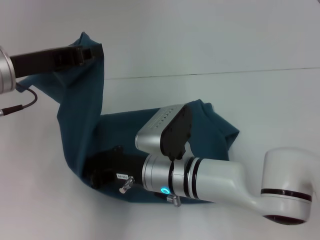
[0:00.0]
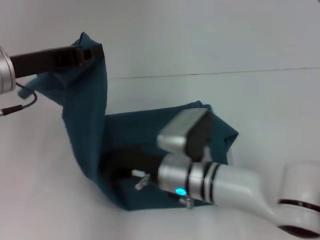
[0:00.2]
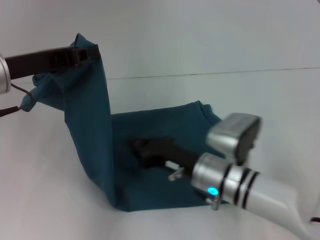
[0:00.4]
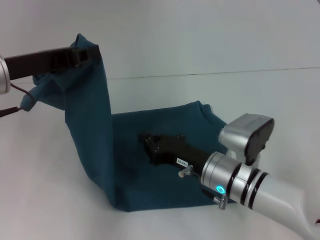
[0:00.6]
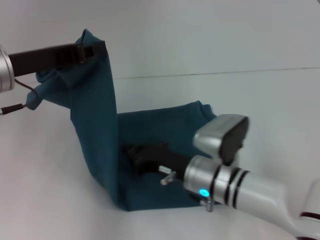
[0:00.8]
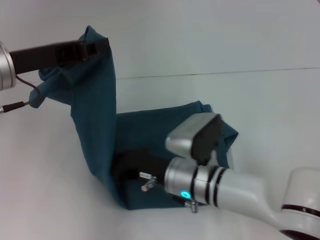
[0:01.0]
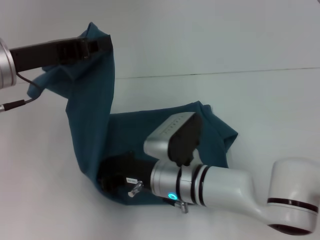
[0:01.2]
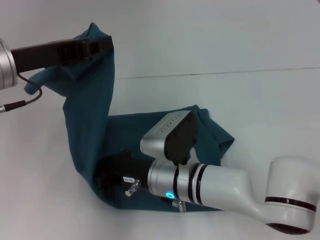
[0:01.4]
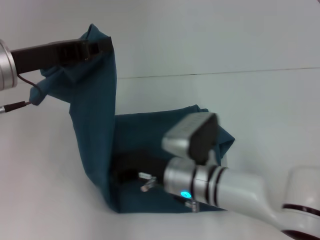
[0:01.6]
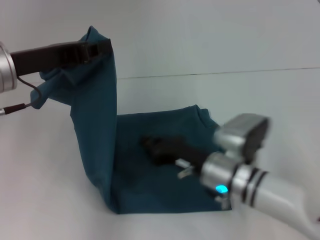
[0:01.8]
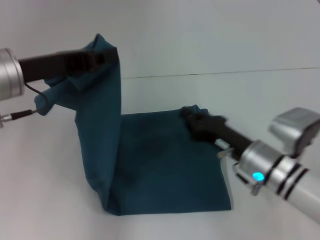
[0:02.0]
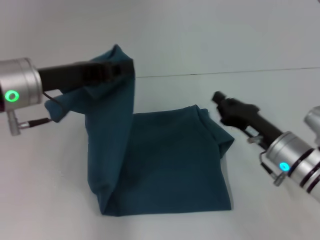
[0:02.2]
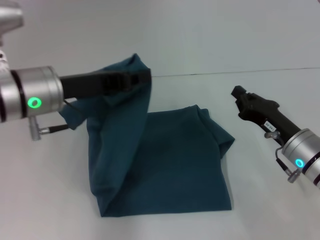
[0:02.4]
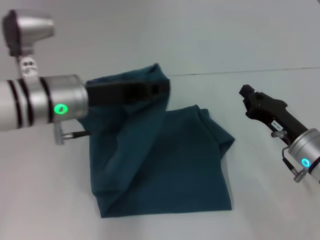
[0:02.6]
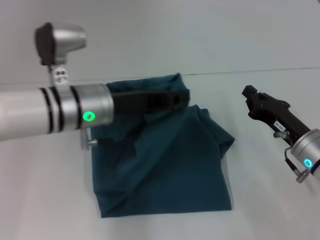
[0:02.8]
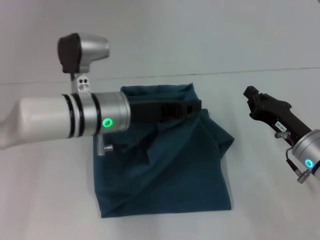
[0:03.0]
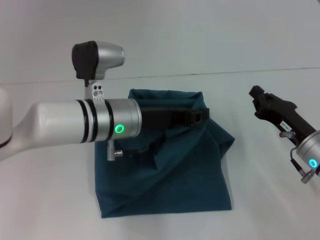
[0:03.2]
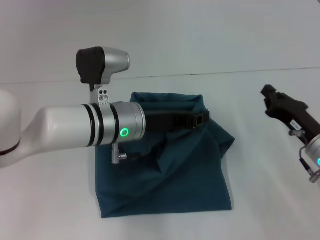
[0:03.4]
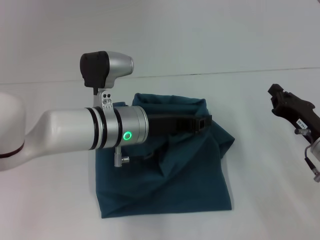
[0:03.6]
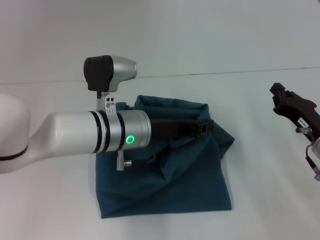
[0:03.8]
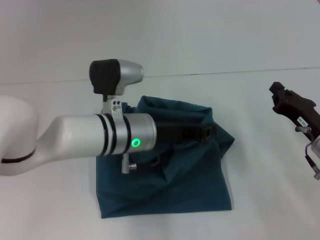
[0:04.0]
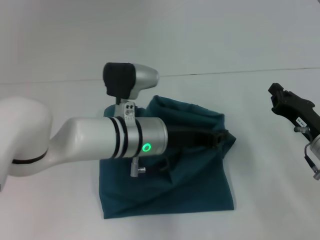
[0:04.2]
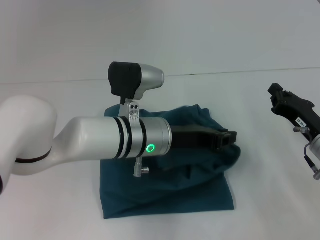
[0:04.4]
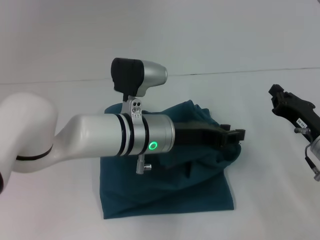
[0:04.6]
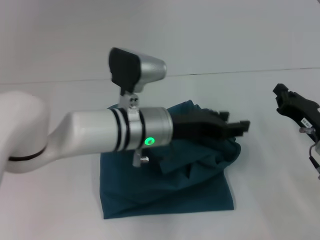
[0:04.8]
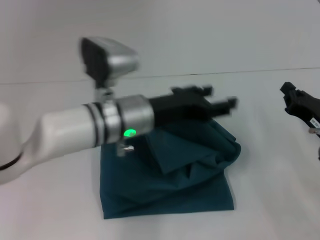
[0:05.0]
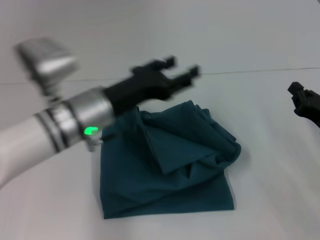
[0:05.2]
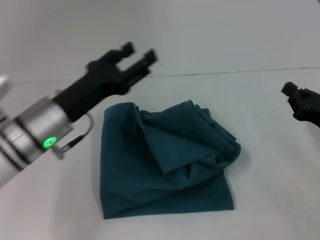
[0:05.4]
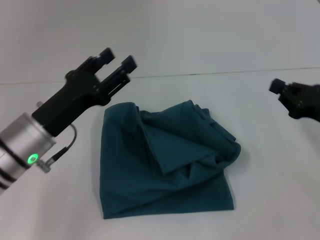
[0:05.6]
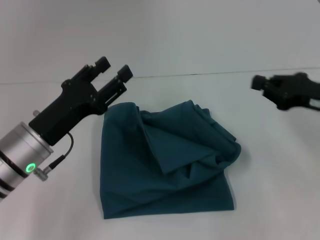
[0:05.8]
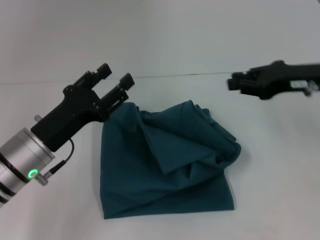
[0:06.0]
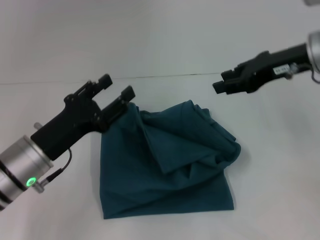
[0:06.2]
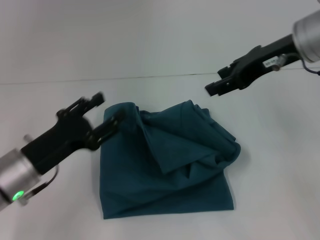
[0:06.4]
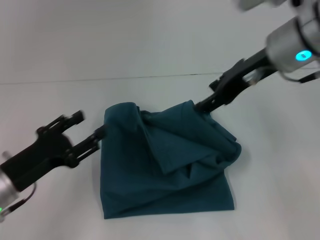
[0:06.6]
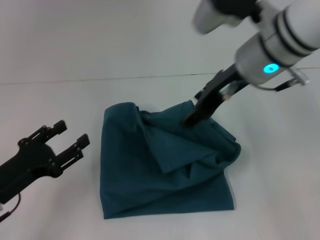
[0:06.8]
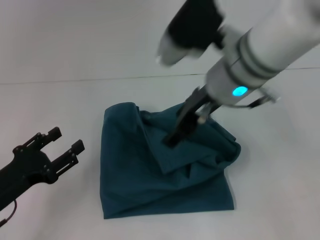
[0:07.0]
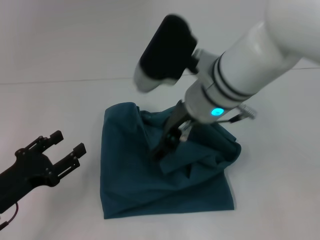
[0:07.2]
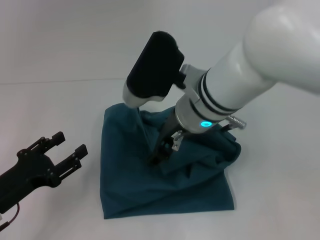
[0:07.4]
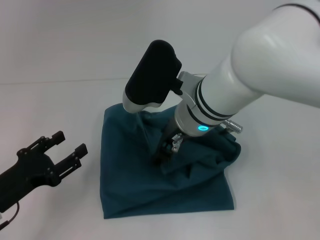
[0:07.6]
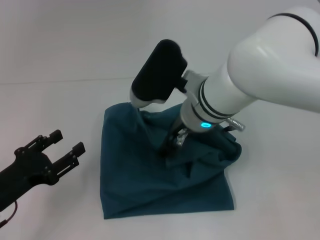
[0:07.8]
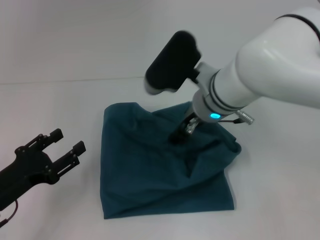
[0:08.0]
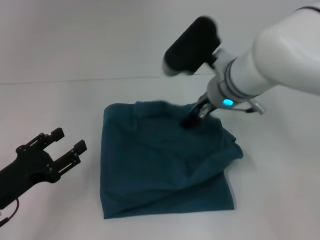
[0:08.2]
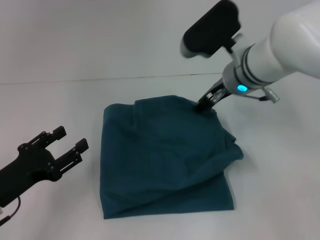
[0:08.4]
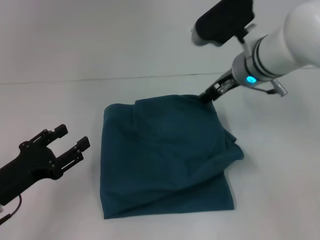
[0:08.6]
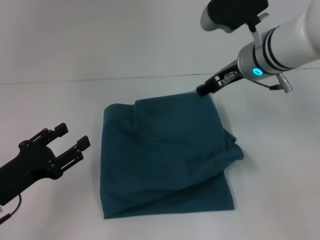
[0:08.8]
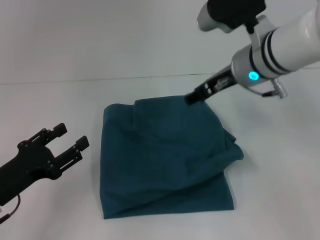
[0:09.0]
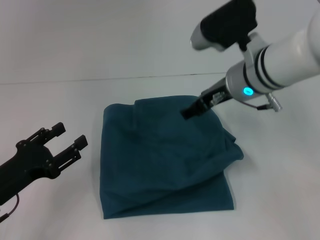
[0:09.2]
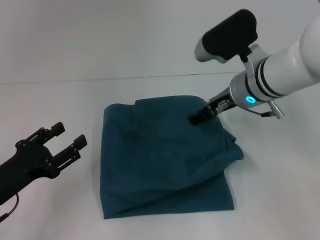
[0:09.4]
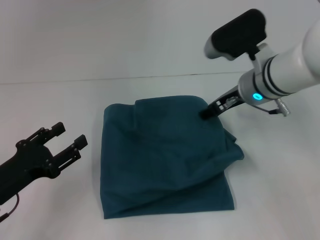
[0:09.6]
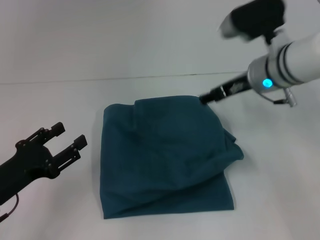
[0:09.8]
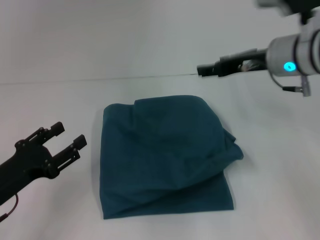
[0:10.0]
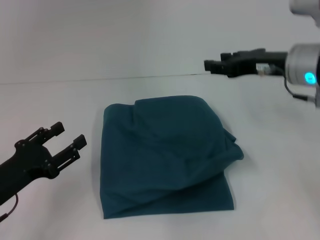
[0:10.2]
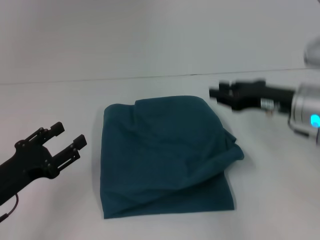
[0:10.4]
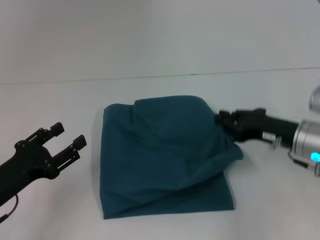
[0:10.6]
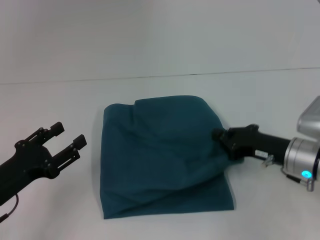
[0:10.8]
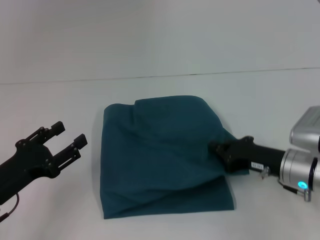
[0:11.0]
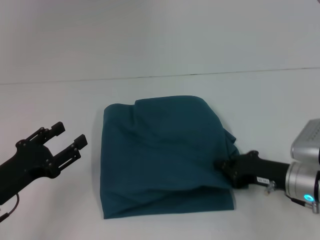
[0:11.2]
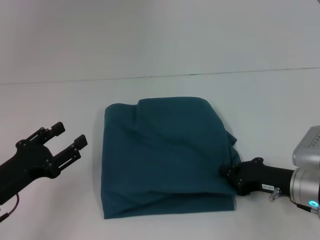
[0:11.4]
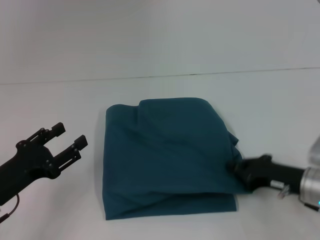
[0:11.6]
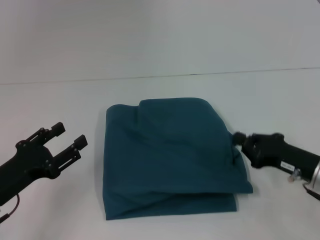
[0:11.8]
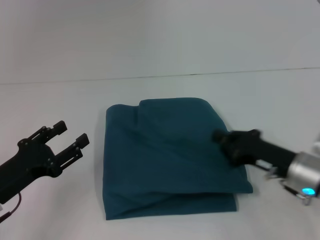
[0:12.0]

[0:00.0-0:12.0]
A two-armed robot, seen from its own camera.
Step, 0:01.8 to 0:05.0: Fold the clothes to the left.
0:01.6 to 0:03.0: The left gripper heads to the right and downward, covering about 15 cm, while the right gripper shifts approximately 20 cm to the right.
0:03.0 to 0:04.4: The left gripper moves to the right, roughly 5 cm.
0:04.4 to 0:06.0: The right gripper moves upward, some 15 cm. Meanwhile the left gripper is displaced to the left by roughly 15 cm, and opens its fingers.
0:06.0 to 0:07.6: The left gripper travels to the left and backward by approximately 10 cm. The right gripper travels to the left by some 20 cm, and opens.
0:07.6 to 0:09.0: The right gripper is displaced to the right by roughly 10 cm.
0:09.0 to 0:10.4: The right gripper shifts approximately 10 cm to the right and downward.
0:10.4 to 0:12.0: The right gripper is displaced downward and backward by some 10 cm, and closes.

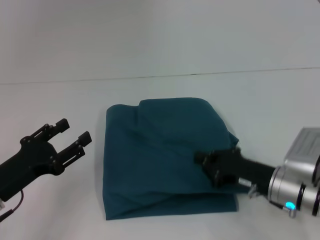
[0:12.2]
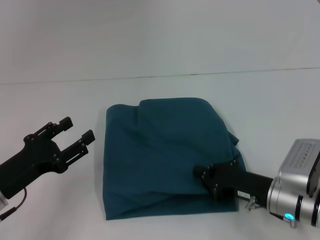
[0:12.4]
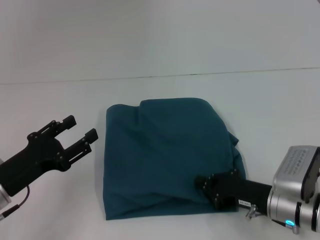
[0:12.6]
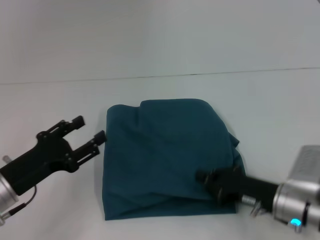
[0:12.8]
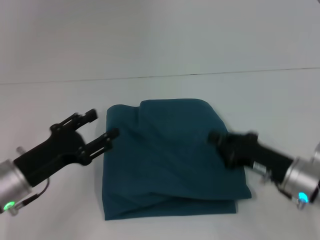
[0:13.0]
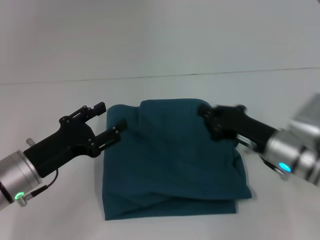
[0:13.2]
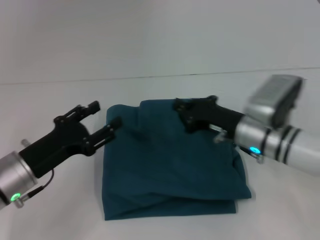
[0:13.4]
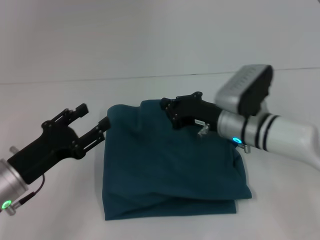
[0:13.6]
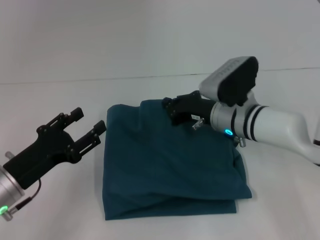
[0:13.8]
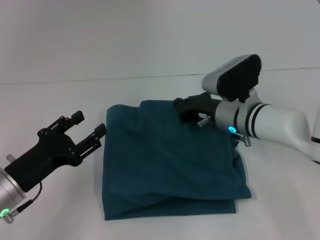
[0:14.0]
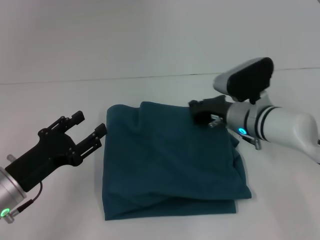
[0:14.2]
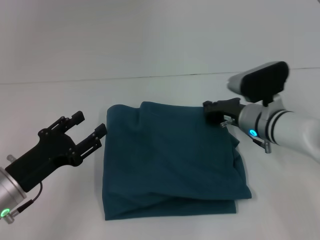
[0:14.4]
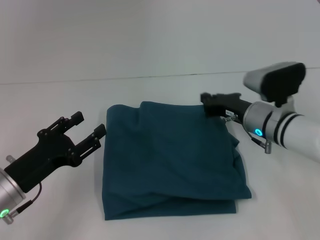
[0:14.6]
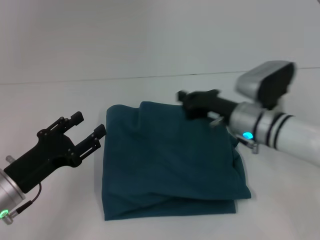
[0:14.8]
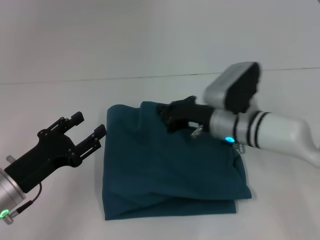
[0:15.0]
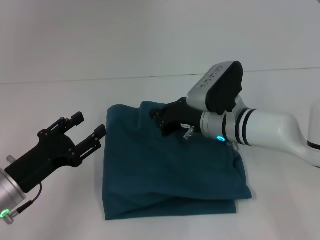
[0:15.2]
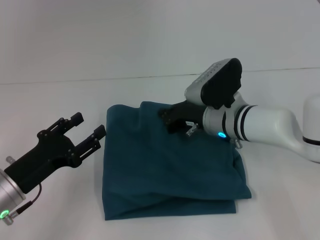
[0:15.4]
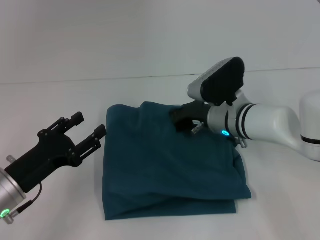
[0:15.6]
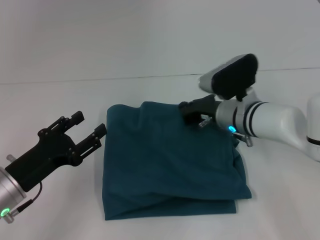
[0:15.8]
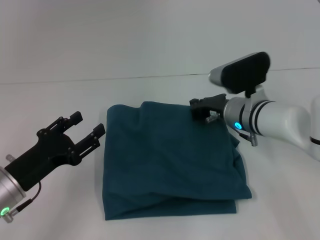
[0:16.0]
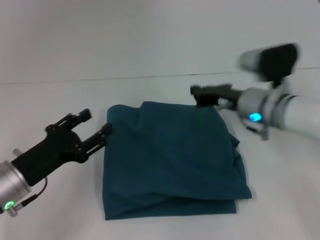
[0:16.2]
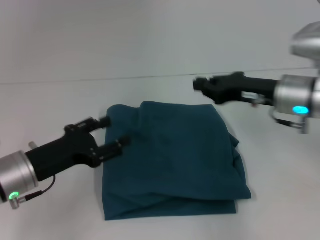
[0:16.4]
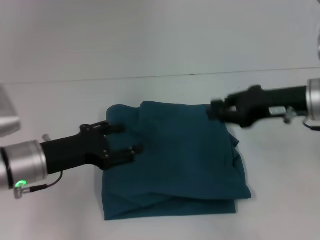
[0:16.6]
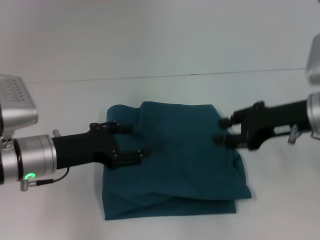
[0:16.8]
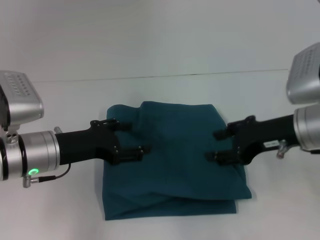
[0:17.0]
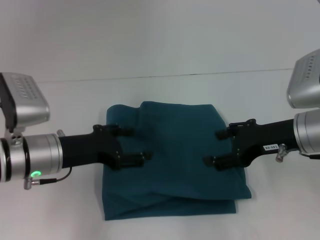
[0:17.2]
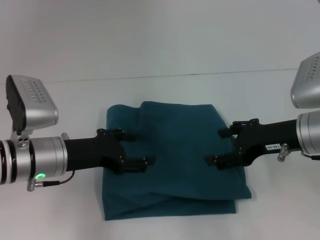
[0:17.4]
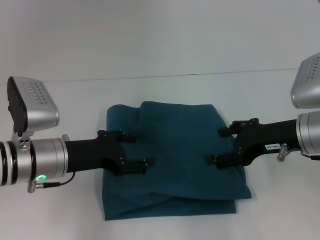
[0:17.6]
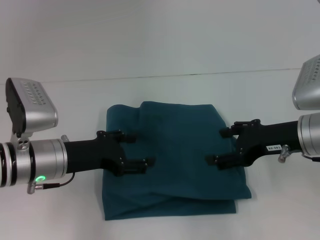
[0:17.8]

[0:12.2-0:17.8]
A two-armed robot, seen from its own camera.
0:12.2 to 0:13.6: The right gripper goes some 10 cm forward and to the left.
0:15.0 to 0:16.4: The right gripper heads to the right and upward, covering approximately 10 cm.
0:16.4 to 0:17.8: The right gripper heads backward, covering about 5 cm, and opens, while the left gripper ends up some 5 cm from where it was.
